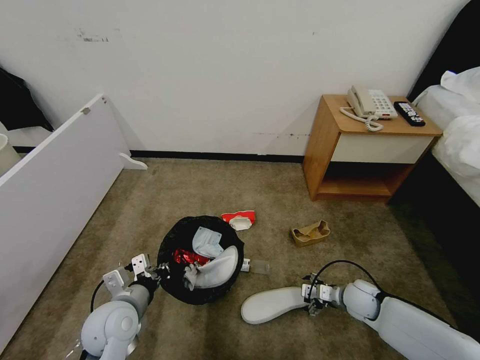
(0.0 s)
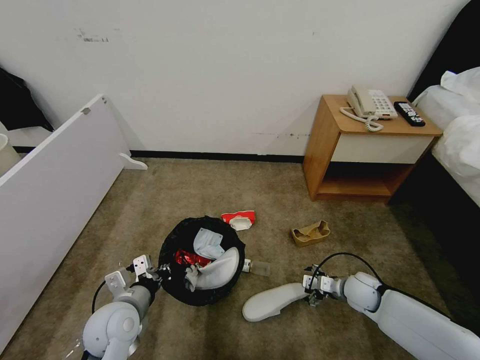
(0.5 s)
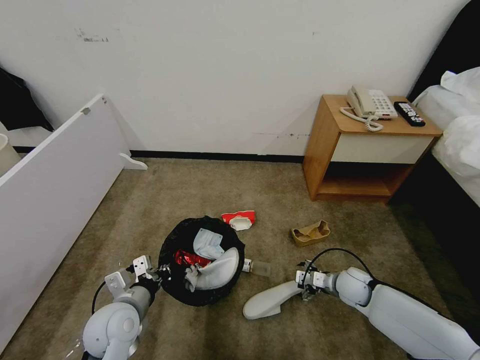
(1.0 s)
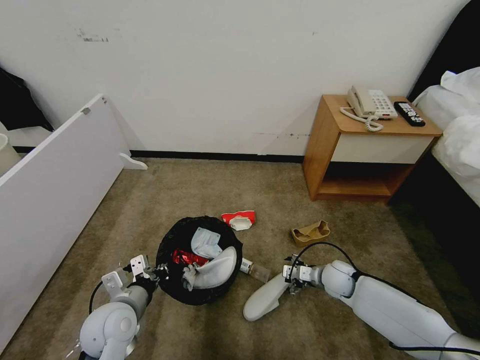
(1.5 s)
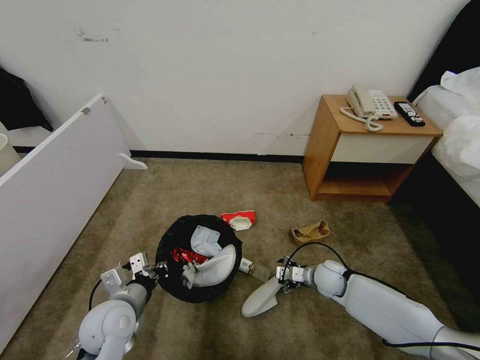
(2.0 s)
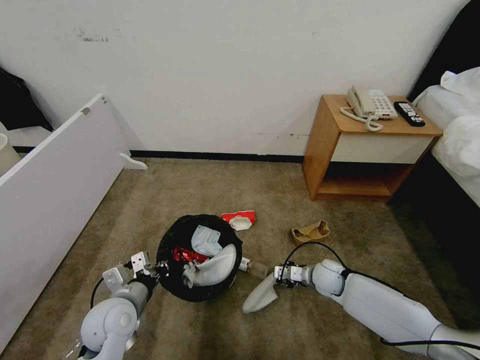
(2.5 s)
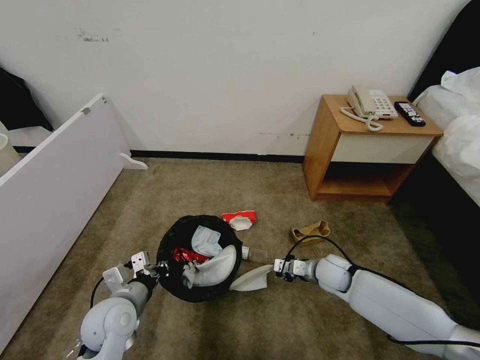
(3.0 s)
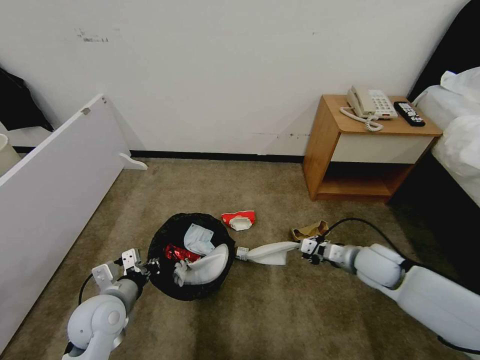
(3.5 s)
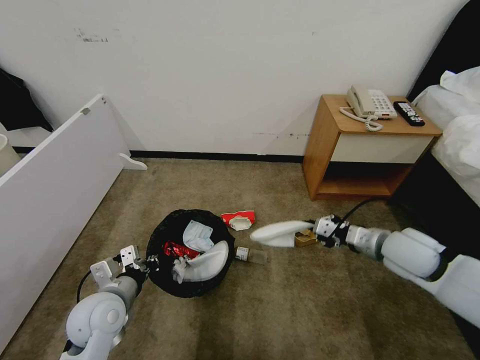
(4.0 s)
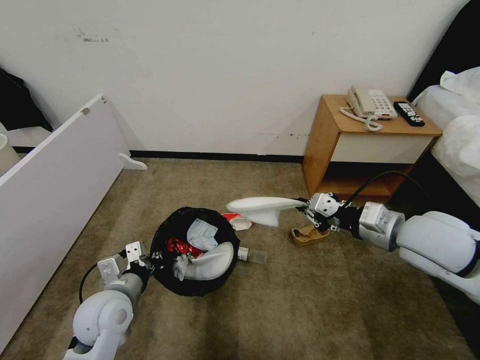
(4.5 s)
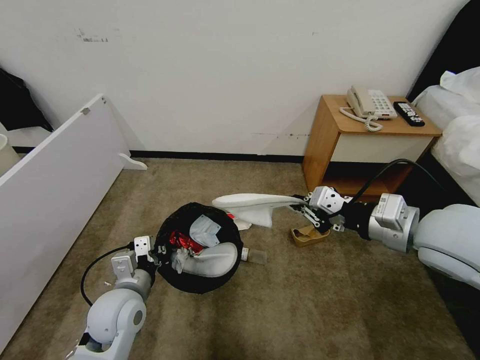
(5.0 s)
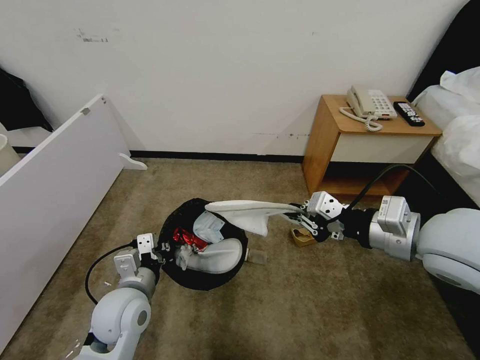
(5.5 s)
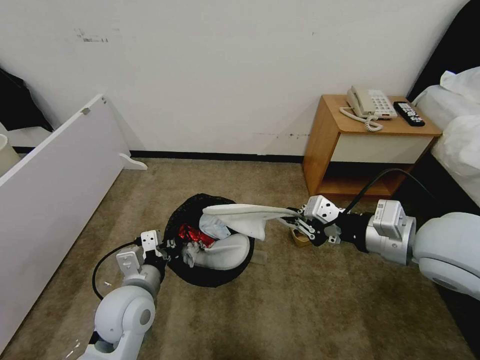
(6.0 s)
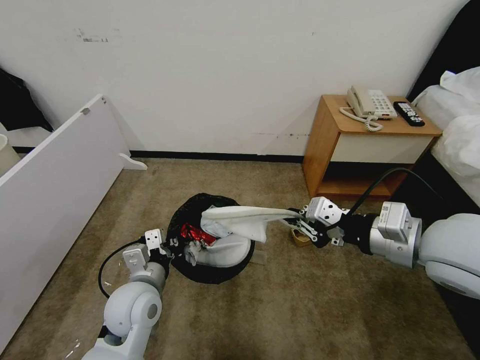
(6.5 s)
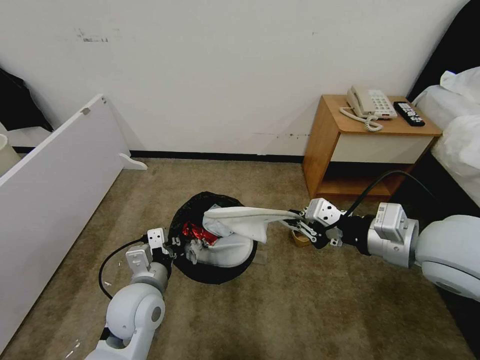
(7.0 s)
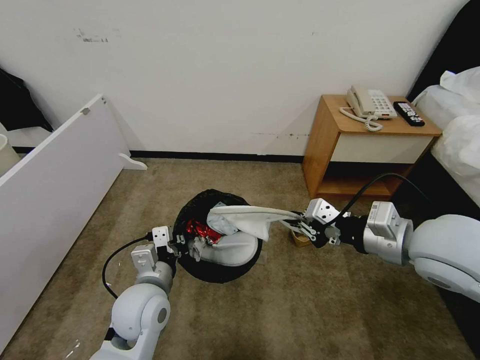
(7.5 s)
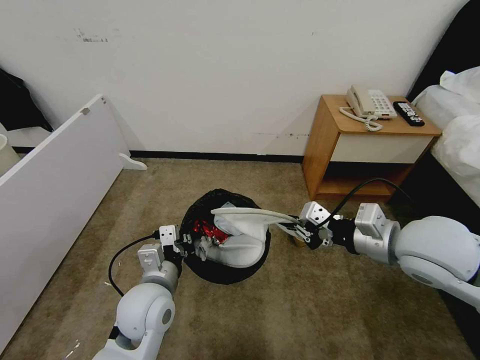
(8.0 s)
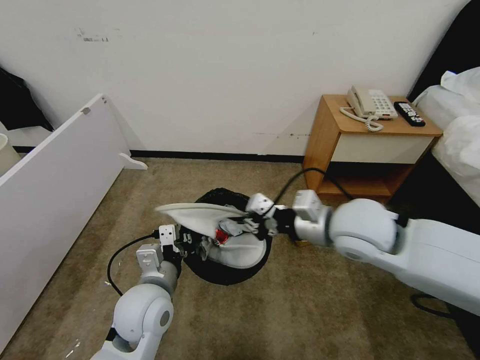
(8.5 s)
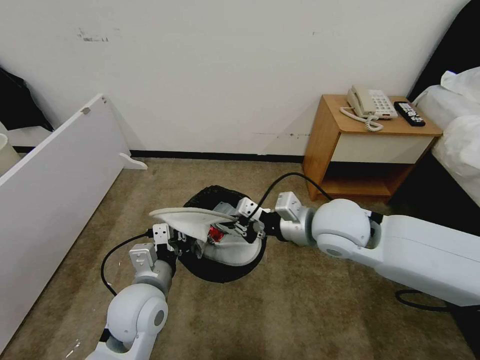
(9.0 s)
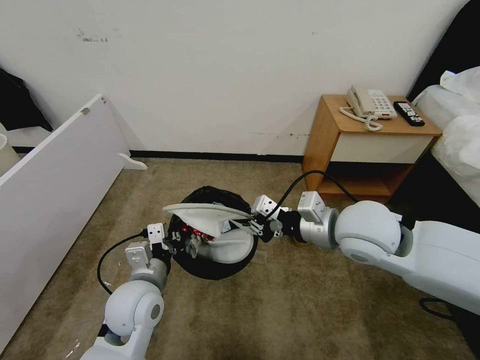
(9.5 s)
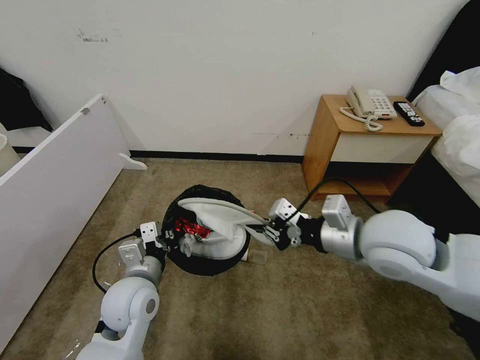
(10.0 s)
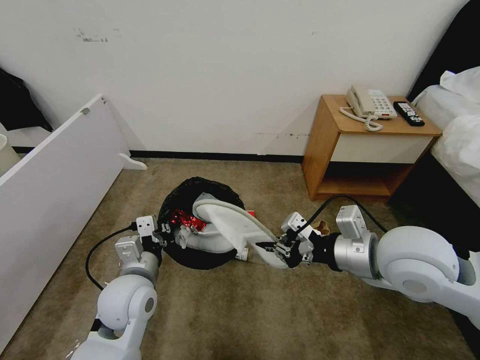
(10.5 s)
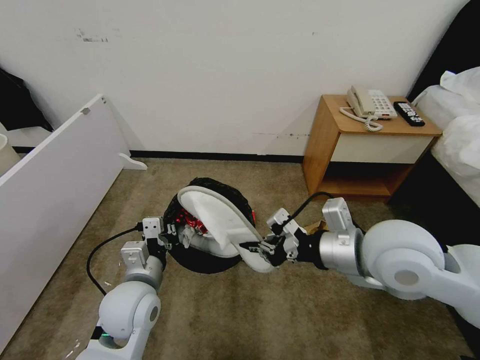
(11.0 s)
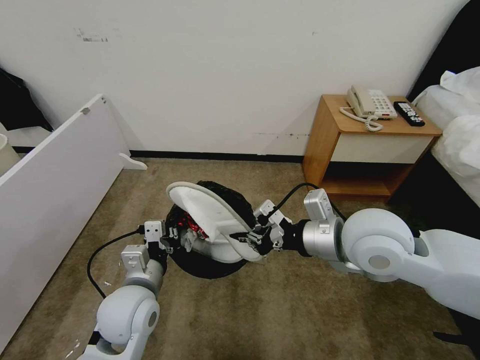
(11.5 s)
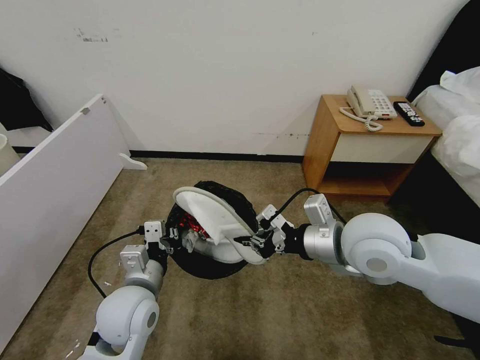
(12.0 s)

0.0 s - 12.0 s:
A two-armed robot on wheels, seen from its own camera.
Task of the whole recording: Pick up the trash bin and place the garbage on the floor into it.
0.0 s - 2.0 s: The right gripper travels to the left and forward by roughly 10 cm.
2.0 s - 4.0 s: The right gripper shifts roughly 20 cm upward, and closes.
4.0 s - 6.0 s: The left gripper heads to the right, covering approximately 5 cm, while the right gripper is displaced upward, backward and to the left by some 20 cm.
6.0 s - 8.0 s: The grippers make only small movements.
8.0 s - 10.0 s: The right gripper heads to the left, covering approximately 5 cm.

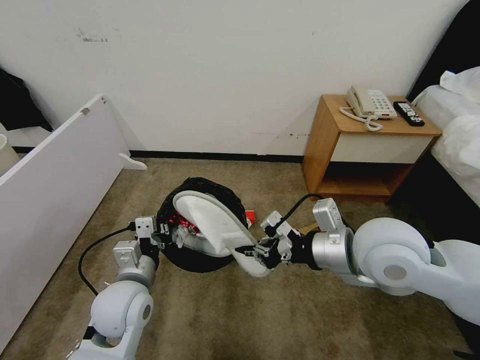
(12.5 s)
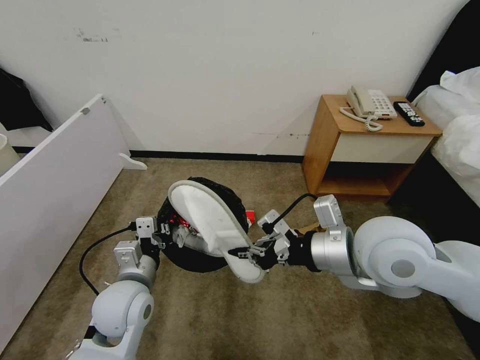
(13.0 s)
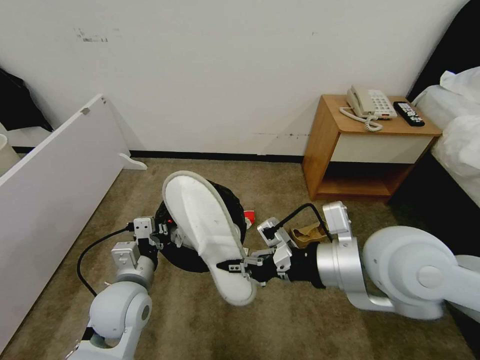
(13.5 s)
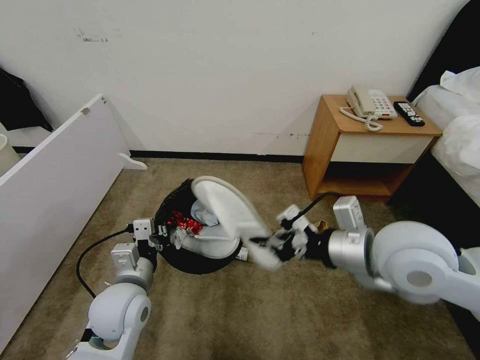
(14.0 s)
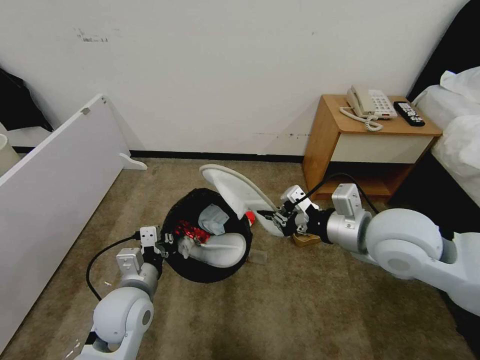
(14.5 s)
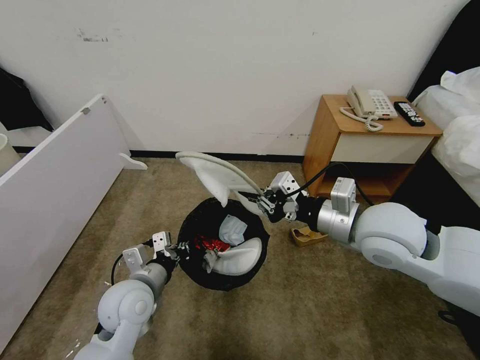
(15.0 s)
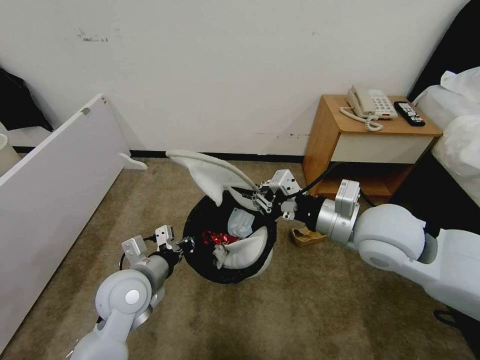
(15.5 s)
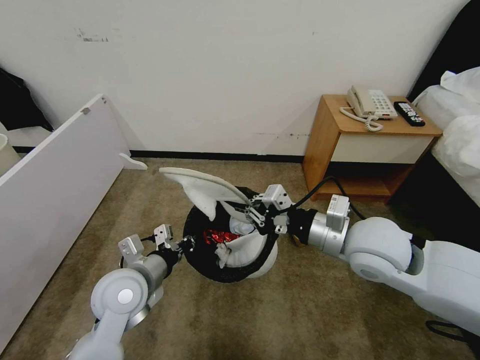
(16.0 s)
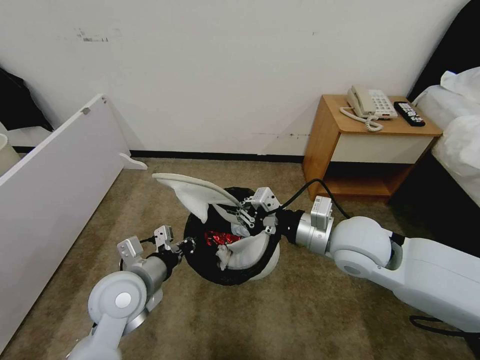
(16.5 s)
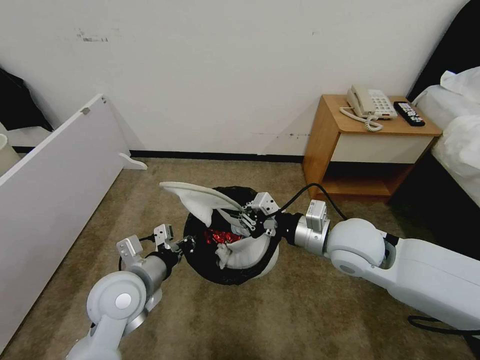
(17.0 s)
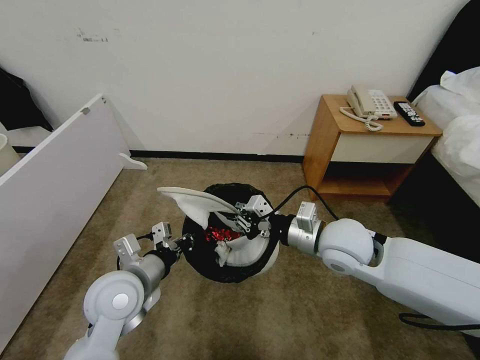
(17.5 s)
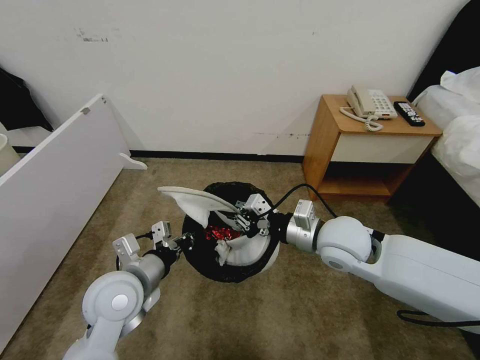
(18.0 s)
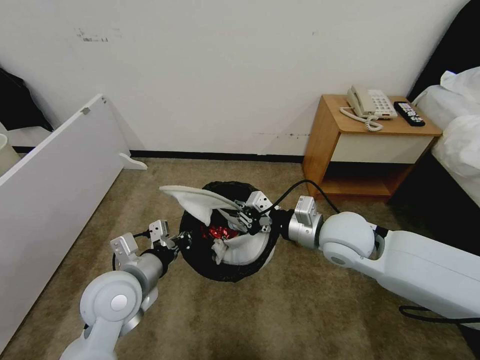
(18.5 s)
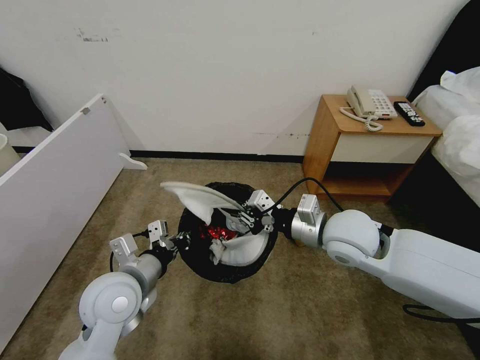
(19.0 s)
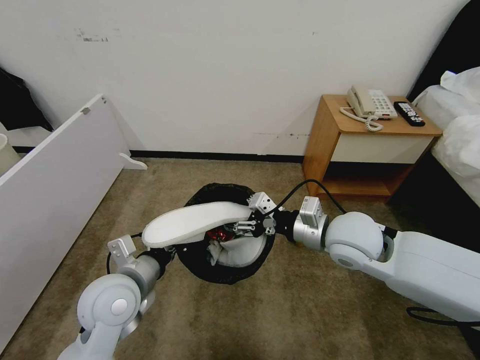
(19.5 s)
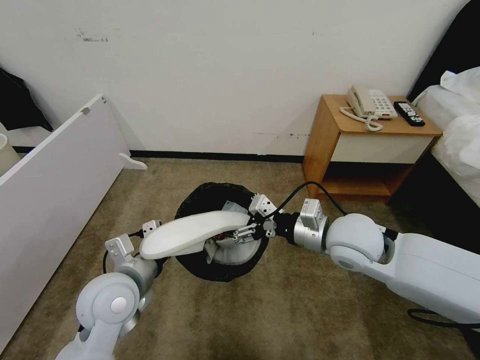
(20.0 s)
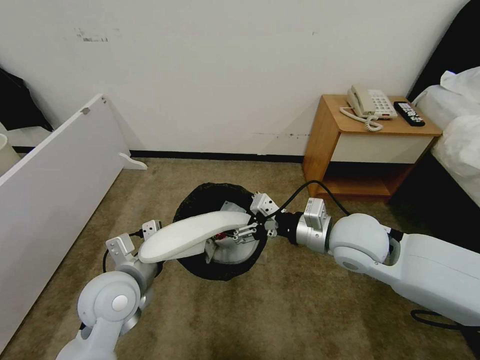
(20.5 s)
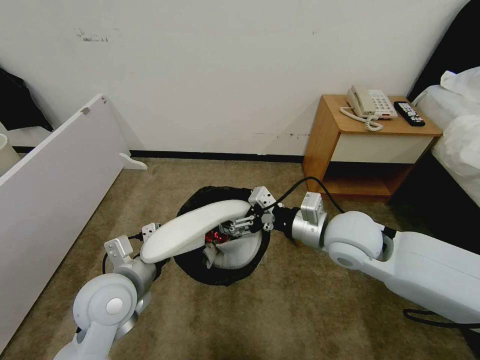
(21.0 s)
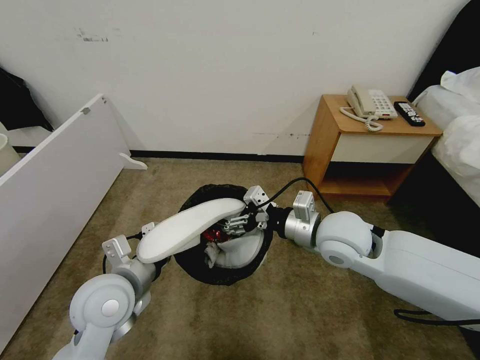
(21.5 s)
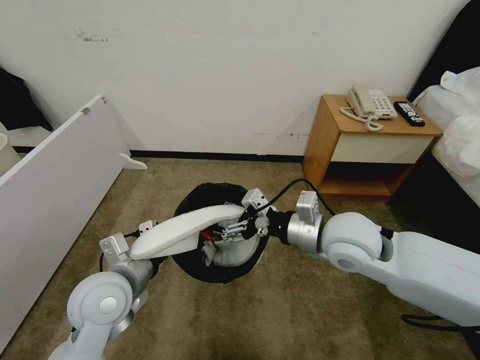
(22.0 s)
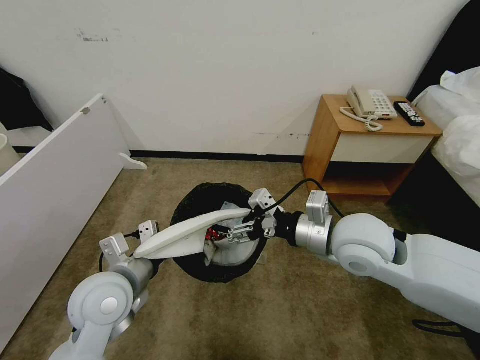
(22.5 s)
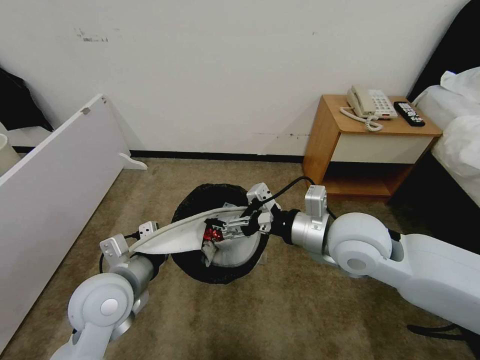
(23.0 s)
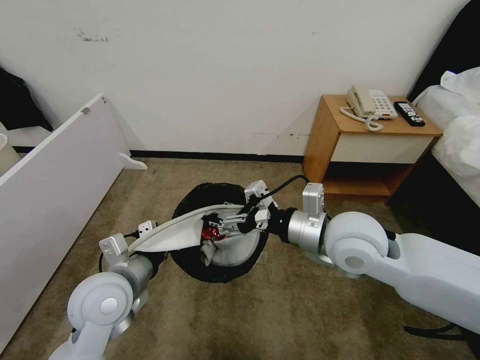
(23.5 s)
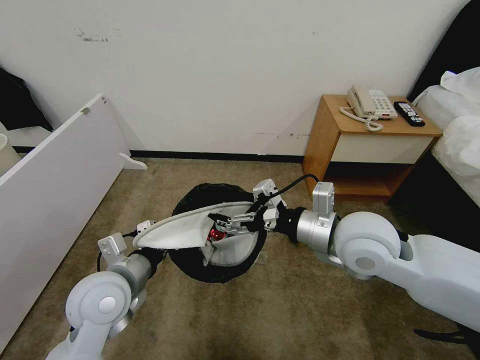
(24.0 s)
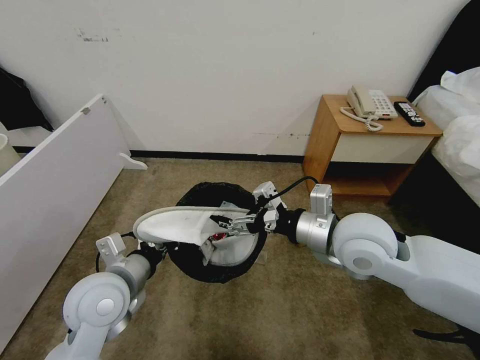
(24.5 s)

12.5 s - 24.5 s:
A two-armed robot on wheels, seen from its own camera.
Task of the whole recording: Pick up the trash bin and place the garbage on the floor into it.
14.5 s - 16.5 s: The right gripper is displaced downward by approximately 5 cm.
16.5 s - 18.5 s: The grippers move only a little.
18.5 s - 20.5 s: The right gripper opens.
20.5 s - 22.5 s: The grippers move only a little.
22.5 s - 24.5 s: The grippers make only small movements.

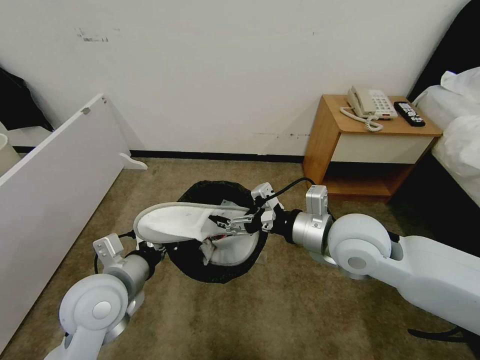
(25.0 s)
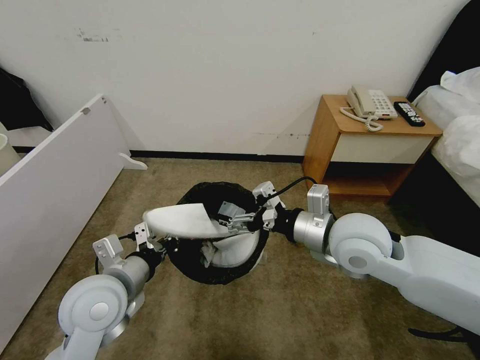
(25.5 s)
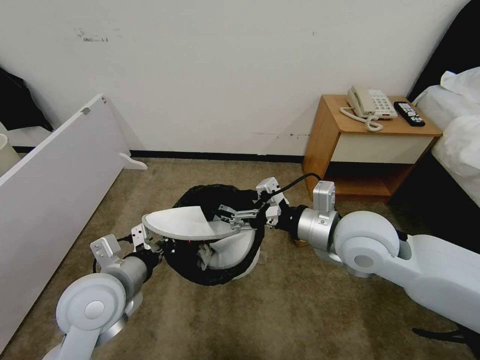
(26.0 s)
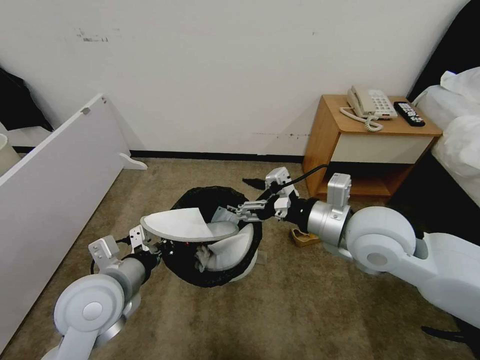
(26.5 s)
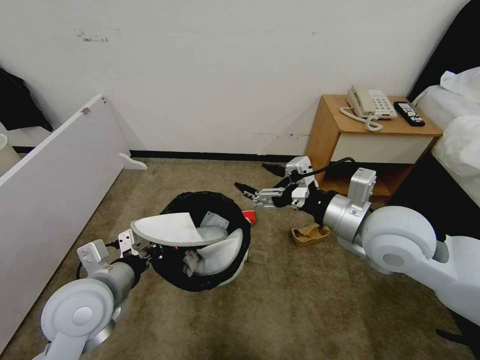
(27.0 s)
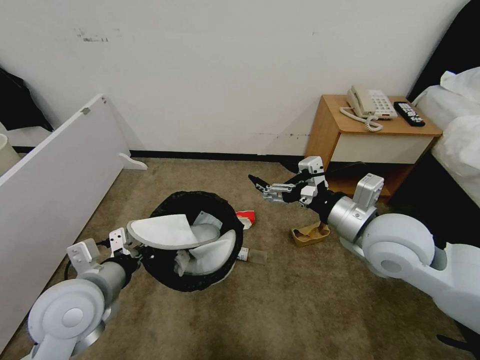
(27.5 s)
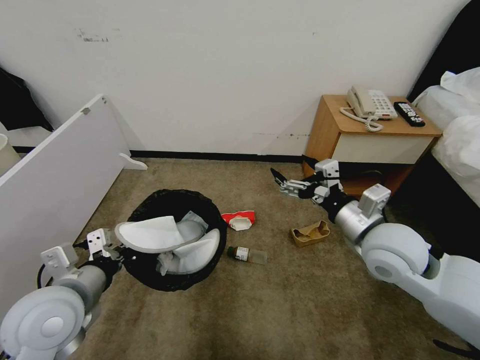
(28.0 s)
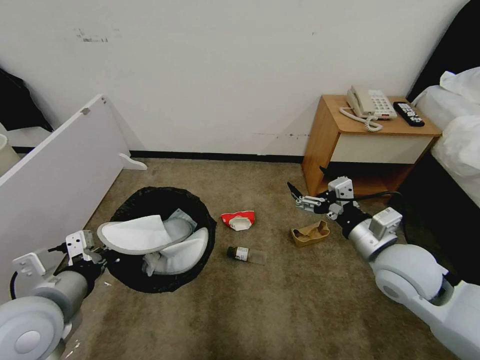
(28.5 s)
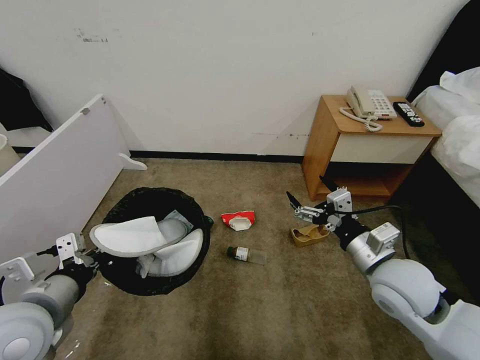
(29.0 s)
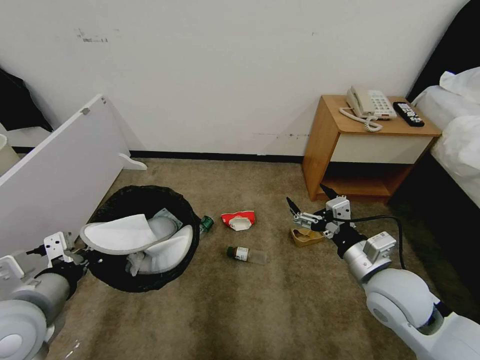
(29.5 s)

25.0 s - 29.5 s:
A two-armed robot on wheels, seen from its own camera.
Task of the whole recording: Pick up the trash bin and place the garbage on the floor into it.
25.0 s - 27.0 s: The right gripper shifts by some 5 cm.
27.0 s - 29.5 s: The left gripper goes approximately 5 cm to the left; the right gripper is displaced downward by about 10 cm.
